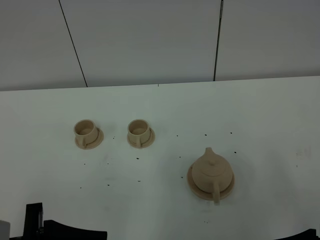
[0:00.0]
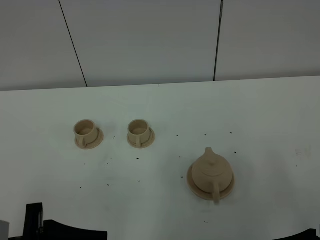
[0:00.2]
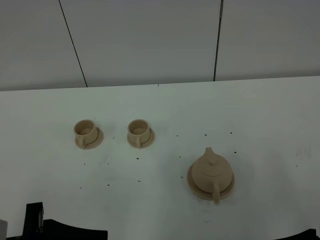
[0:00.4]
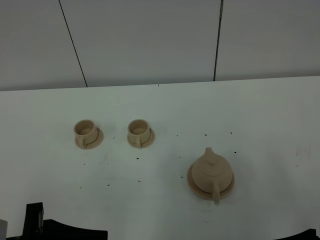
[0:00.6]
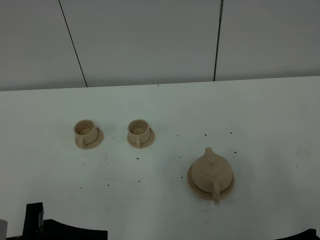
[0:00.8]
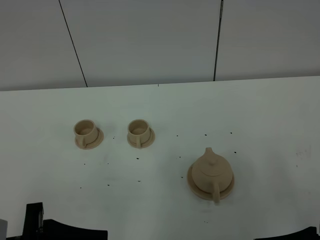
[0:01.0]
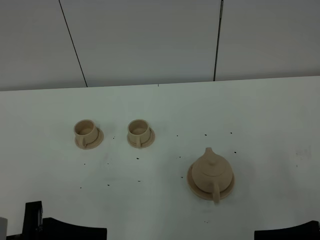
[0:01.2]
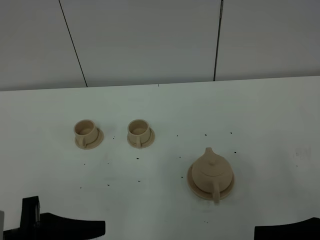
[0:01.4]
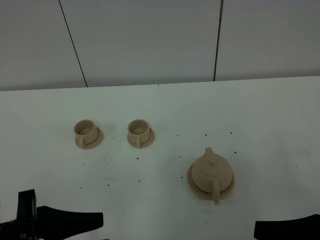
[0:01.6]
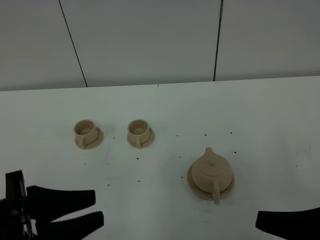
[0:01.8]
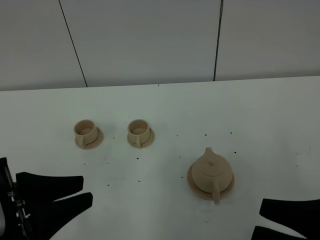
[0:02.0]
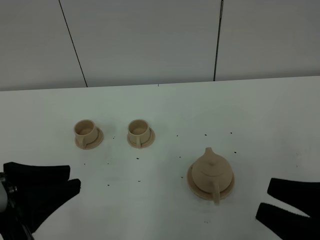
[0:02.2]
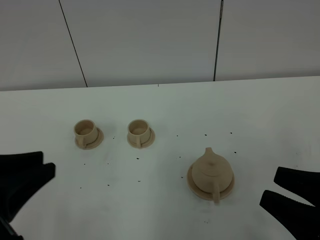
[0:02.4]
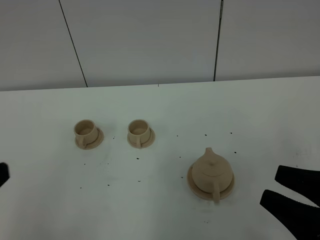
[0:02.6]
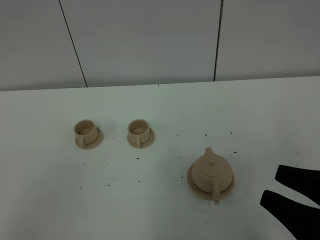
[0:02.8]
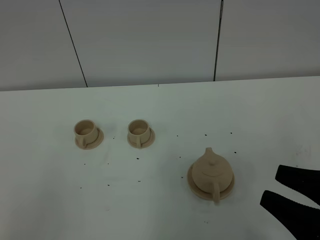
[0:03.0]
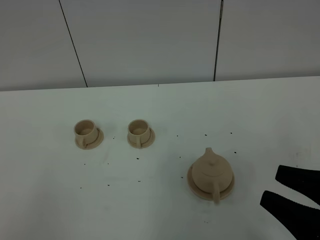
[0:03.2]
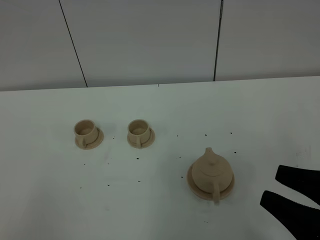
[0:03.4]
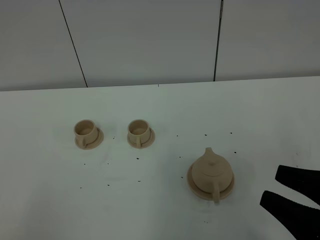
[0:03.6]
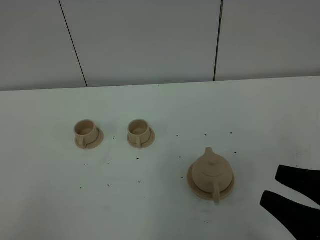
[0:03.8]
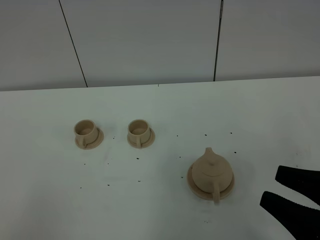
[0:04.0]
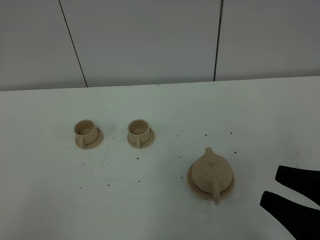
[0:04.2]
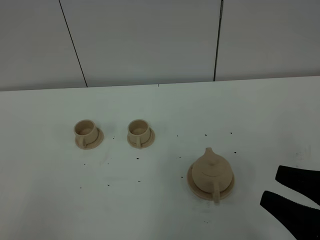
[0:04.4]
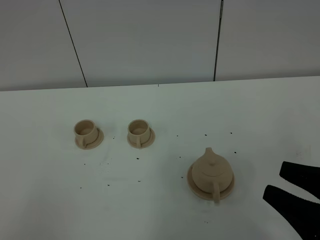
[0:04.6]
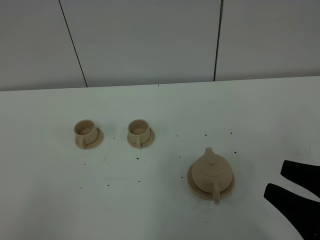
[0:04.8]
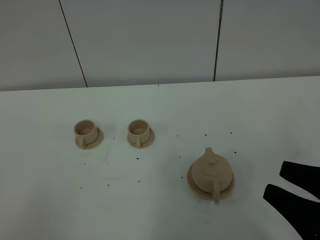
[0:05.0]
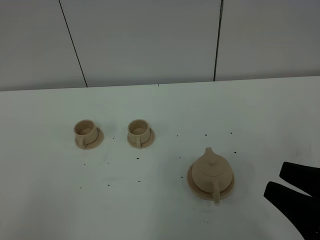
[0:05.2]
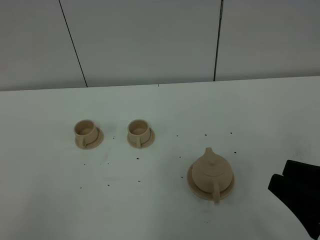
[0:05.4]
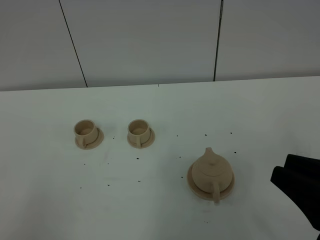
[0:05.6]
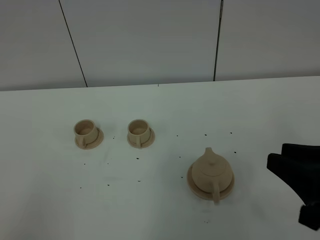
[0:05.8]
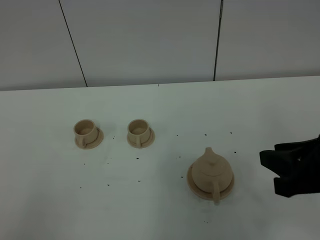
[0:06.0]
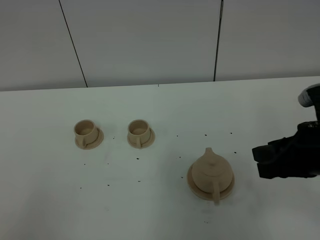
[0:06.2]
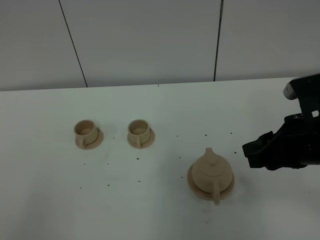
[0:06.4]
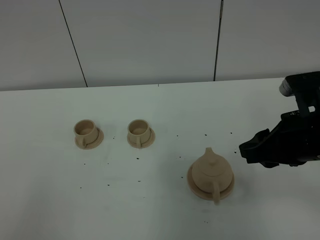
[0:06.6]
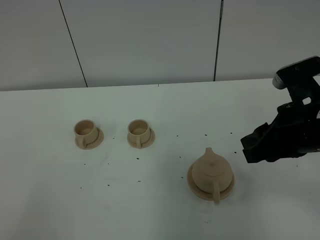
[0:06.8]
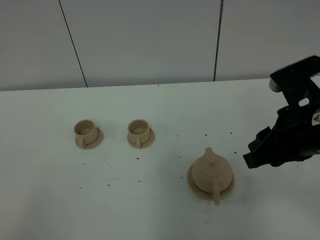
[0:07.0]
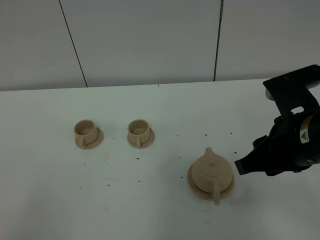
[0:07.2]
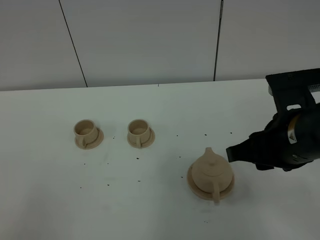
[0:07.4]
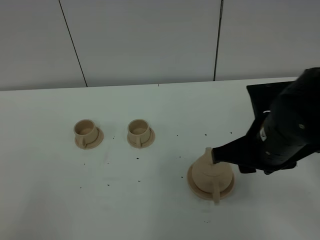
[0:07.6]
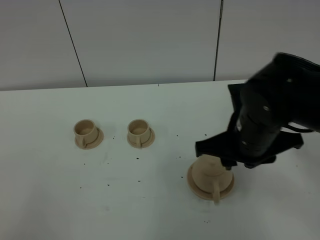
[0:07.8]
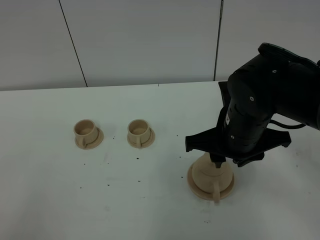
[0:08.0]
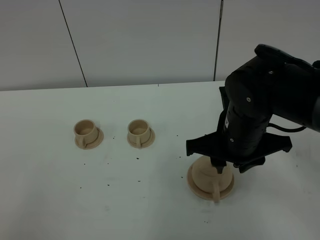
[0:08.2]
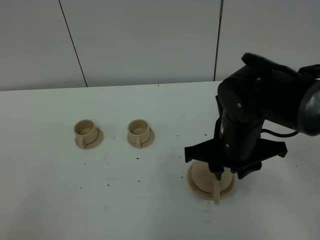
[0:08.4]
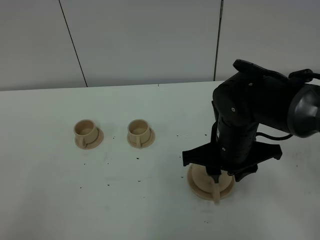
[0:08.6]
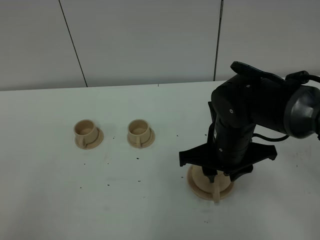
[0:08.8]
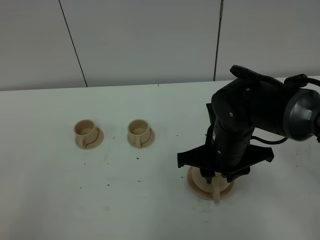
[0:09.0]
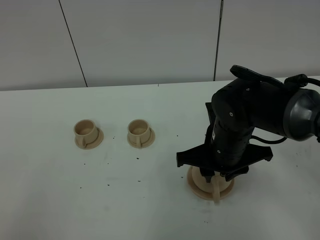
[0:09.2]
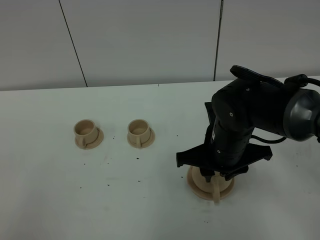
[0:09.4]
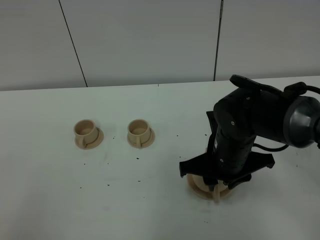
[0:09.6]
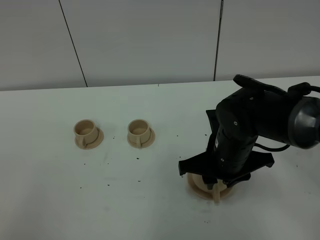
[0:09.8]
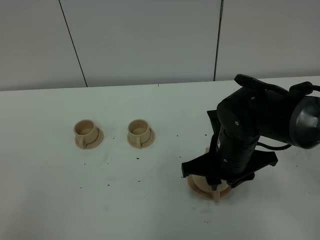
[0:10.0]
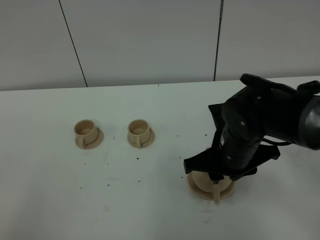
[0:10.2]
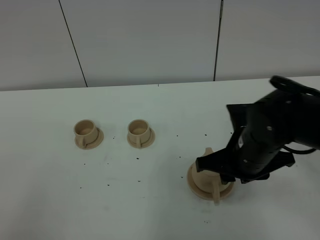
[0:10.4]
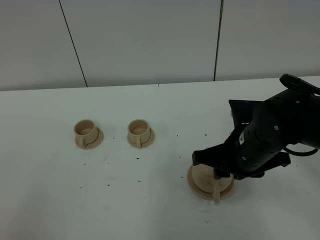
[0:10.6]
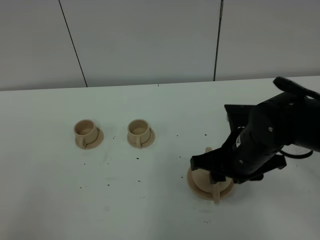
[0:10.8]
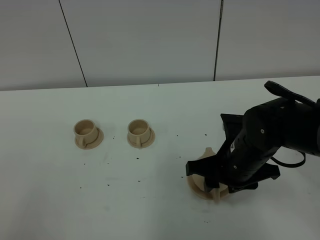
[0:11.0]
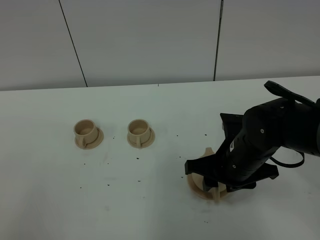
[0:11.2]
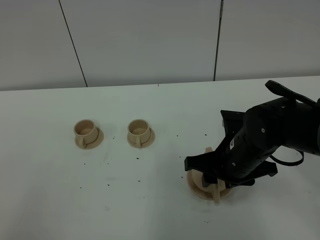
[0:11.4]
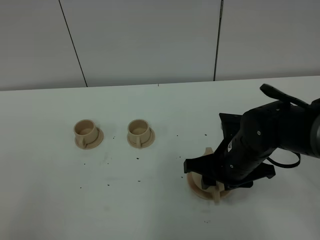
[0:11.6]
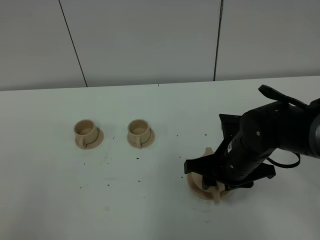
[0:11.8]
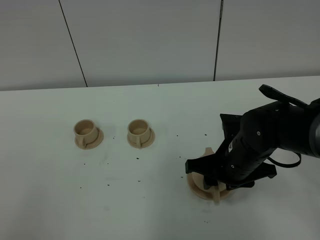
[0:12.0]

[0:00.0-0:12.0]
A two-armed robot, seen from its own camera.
Task of the whole recording: grasp the brown teapot and pour the tea into the two brown teacups one by one, put the brown teapot back in its original place.
0:00.0 to 0:01.6: There are only small adjustments of the grippers.
0:01.6 to 0:03.0: The left gripper shifts approximately 15 cm backward, to the left and upward, and closes.
0:04.4 to 0:06.0: The right gripper goes roughly 10 cm forward.
0:06.0 to 0:07.6: The right gripper is displaced to the left and forward by about 10 cm.
0:07.6 to 0:09.0: The right gripper heads downward, covering approximately 5 cm.
0:09.0 to 0:12.0: The grippers move only a little.

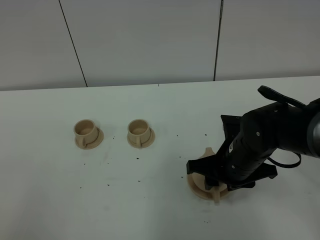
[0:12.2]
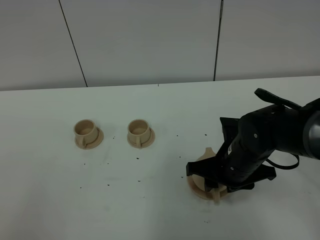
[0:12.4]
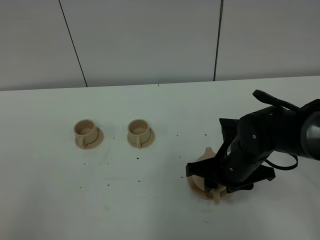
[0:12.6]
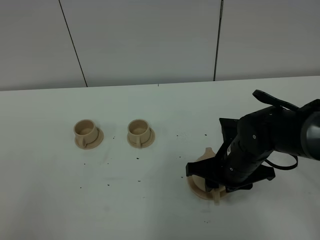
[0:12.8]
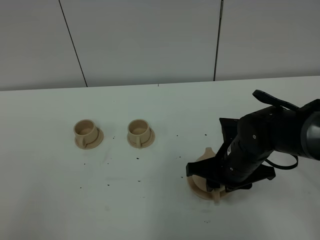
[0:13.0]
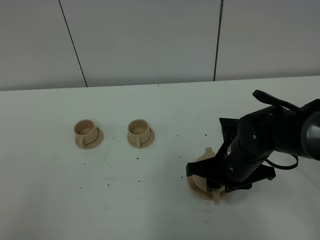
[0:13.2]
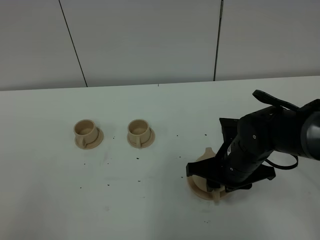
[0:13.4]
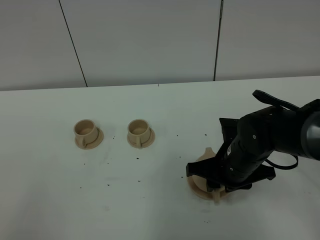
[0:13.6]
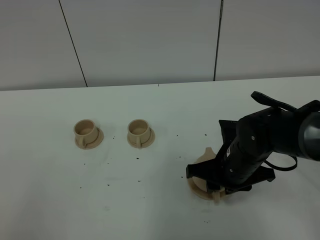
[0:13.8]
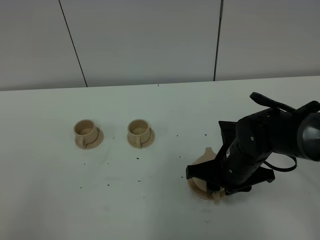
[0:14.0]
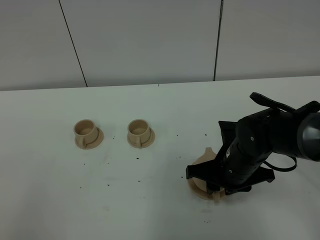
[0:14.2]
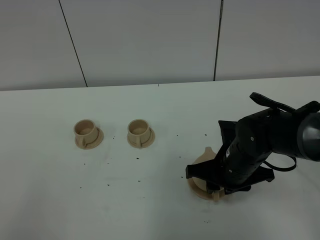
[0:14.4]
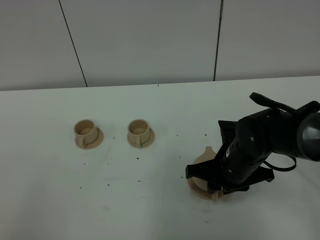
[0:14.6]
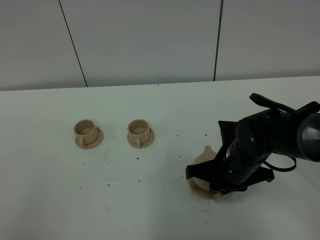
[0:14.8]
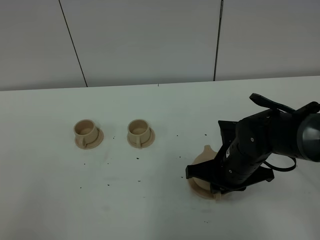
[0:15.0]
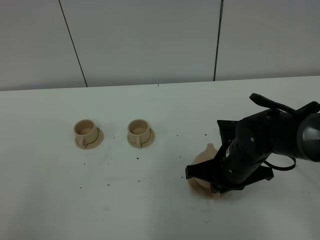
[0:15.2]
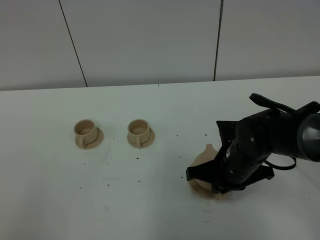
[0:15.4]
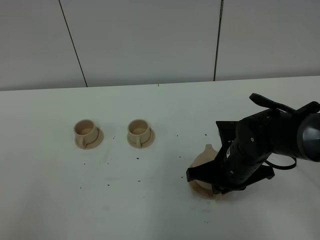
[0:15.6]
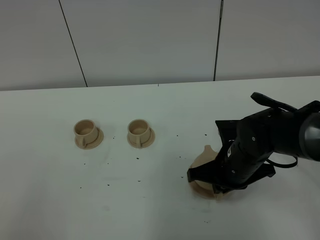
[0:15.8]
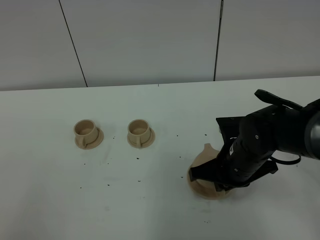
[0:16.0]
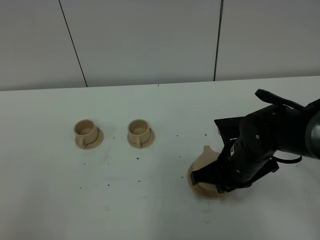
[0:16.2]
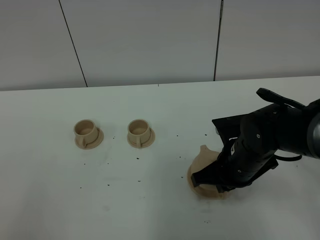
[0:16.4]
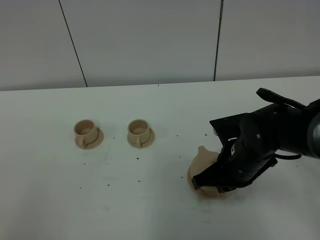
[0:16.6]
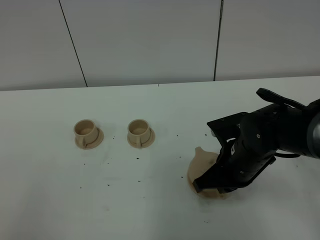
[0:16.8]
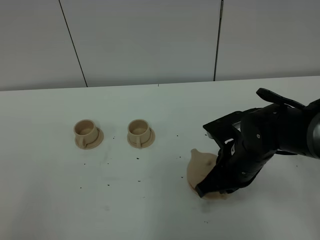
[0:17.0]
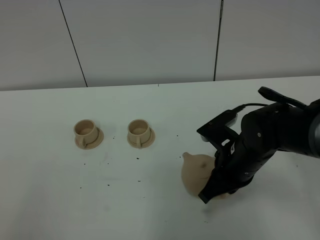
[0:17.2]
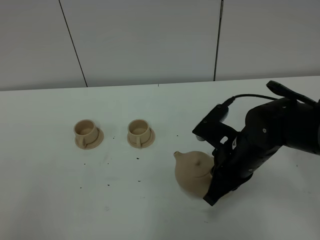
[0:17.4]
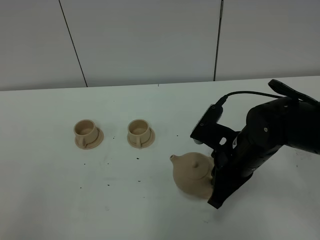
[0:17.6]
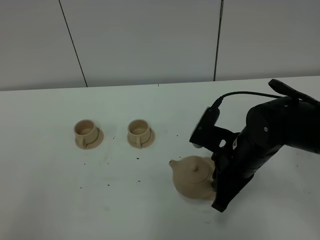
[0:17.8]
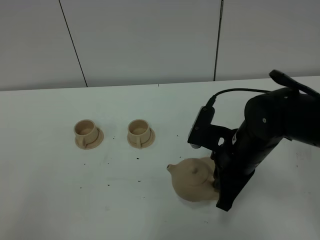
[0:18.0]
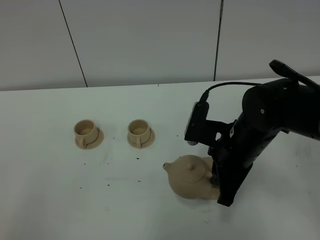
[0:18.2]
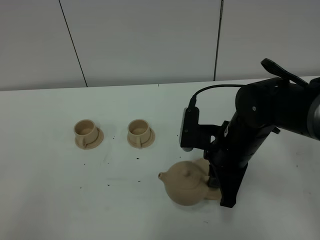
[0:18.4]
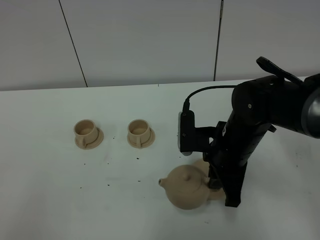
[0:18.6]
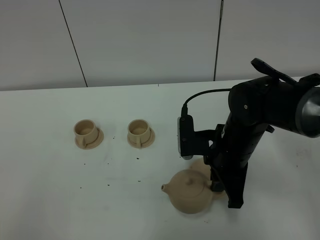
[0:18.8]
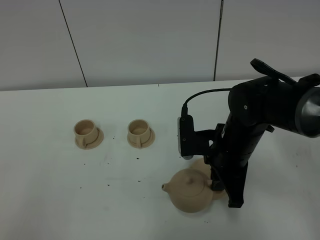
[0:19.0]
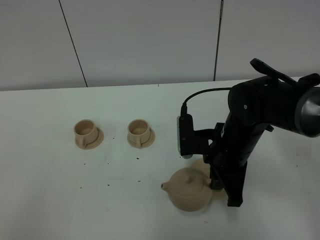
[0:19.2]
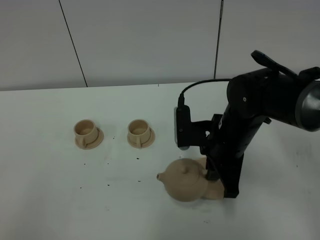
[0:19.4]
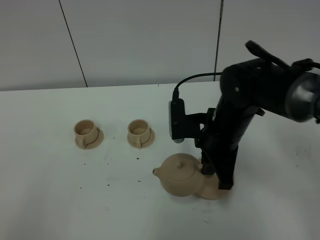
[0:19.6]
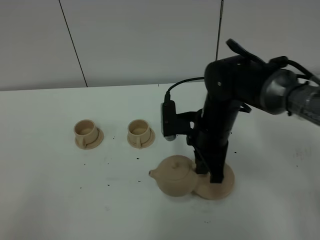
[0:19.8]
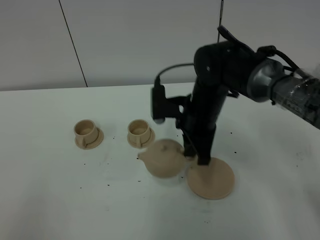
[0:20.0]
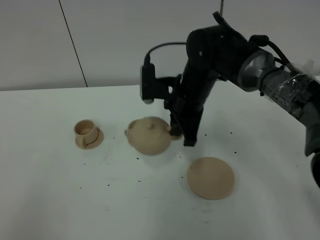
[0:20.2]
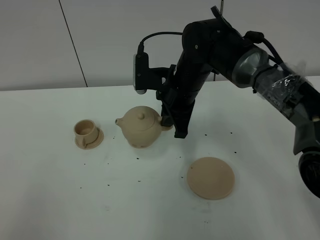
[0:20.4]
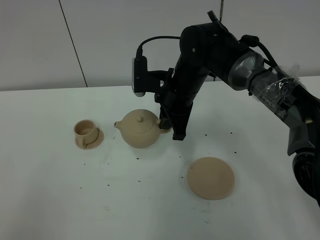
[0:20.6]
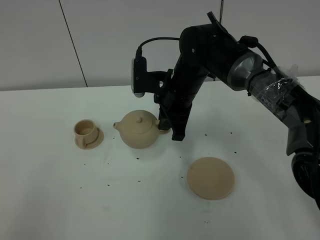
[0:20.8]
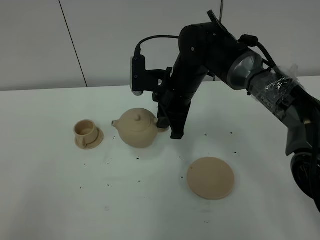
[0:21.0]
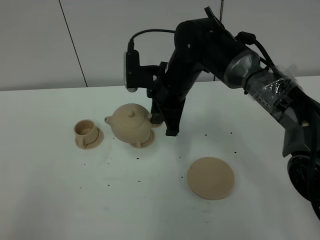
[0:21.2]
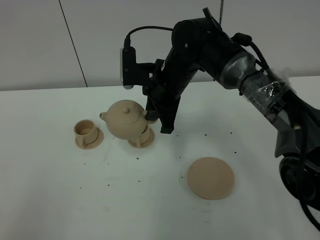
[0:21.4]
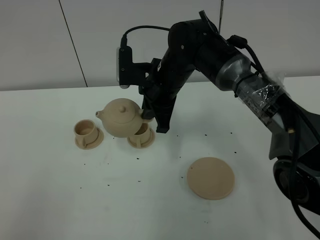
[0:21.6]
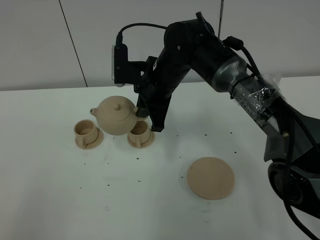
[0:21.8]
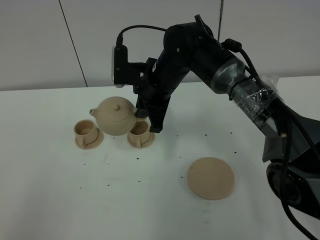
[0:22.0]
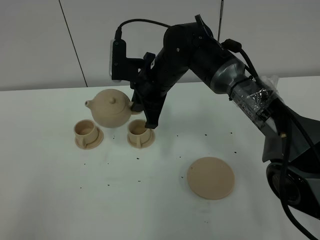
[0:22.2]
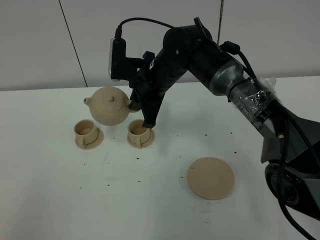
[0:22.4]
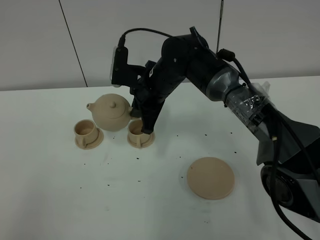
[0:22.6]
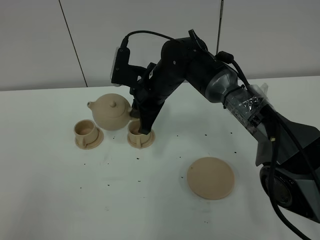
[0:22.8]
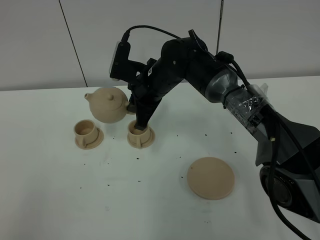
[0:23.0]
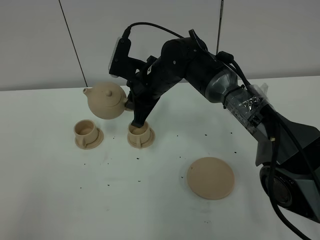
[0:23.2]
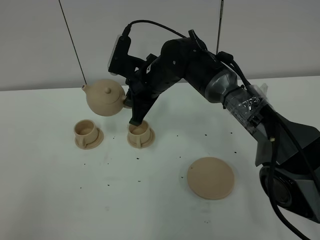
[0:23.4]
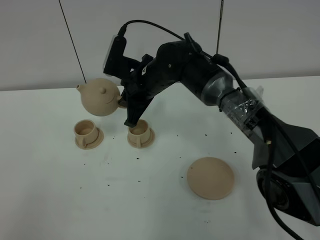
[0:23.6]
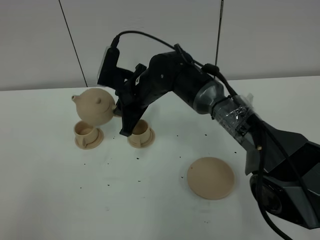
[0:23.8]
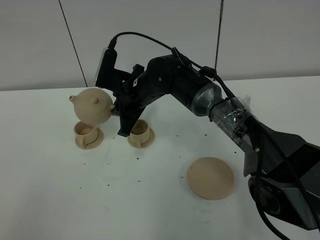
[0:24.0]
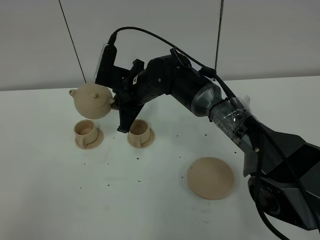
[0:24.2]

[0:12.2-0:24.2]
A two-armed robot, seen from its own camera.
Task of the whole recording: grasp the brown teapot and pour the tea into the two brown teacups one by one, put the brown teapot back in its original place.
Step, 0:12.2 to 0:16.4: Pick up the teapot with the right gripper.
0:12.2 to 0:13.8: There are only small adjustments of the grippers.
0:13.8 to 0:15.2: The right gripper closes.
0:15.2 to 0:16.6: The grippers make only small movements.
0:18.2 to 0:19.8: The right gripper moves forward, about 5 cm.
0:19.8 to 0:21.2: The right gripper is displaced forward and to the left by roughly 10 cm.
0:22.6 to 0:24.2: The grippers stay close to where they were, moving slightly.
